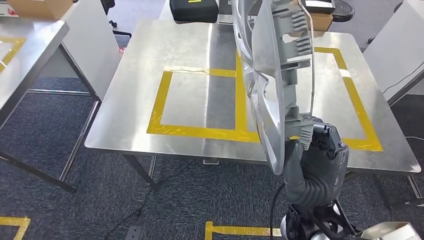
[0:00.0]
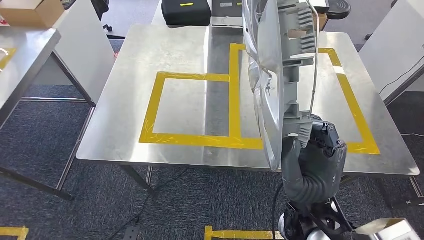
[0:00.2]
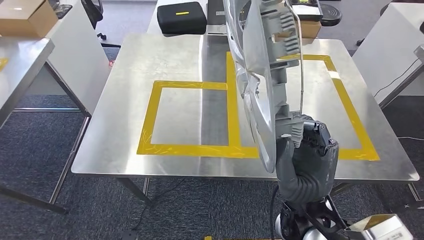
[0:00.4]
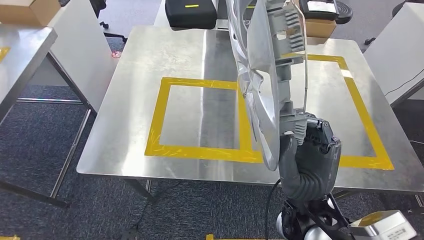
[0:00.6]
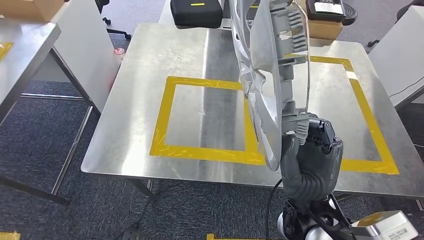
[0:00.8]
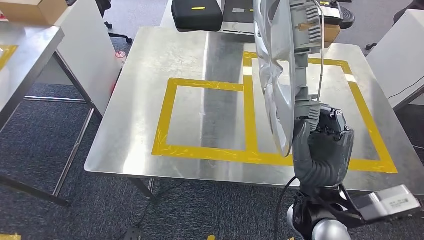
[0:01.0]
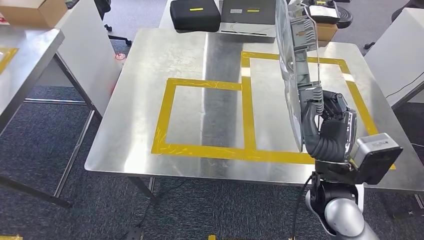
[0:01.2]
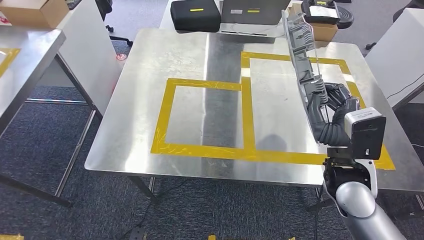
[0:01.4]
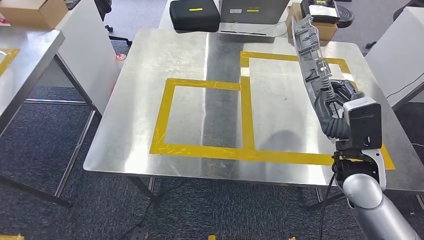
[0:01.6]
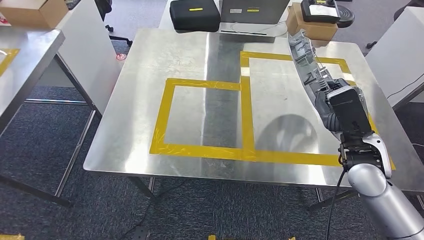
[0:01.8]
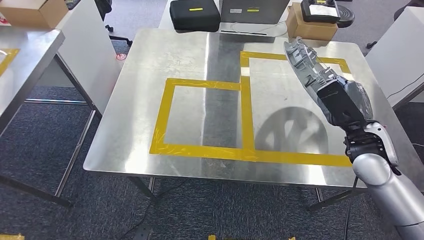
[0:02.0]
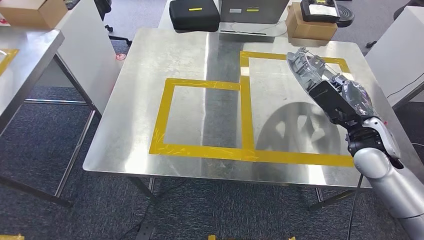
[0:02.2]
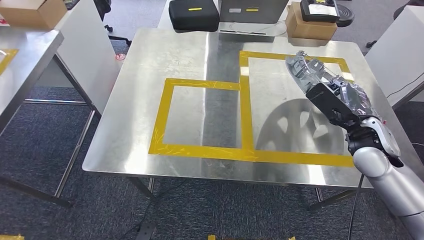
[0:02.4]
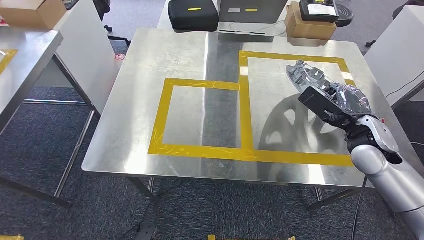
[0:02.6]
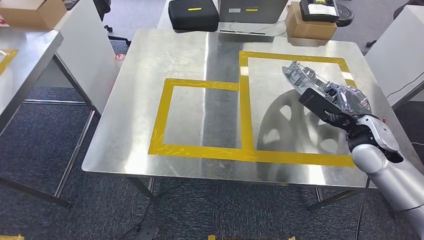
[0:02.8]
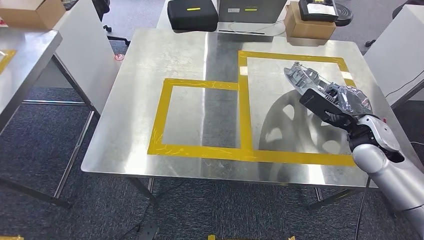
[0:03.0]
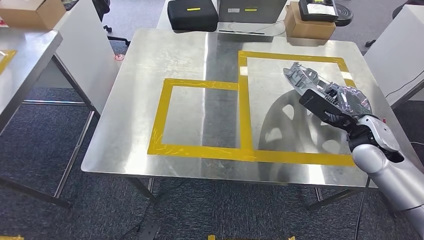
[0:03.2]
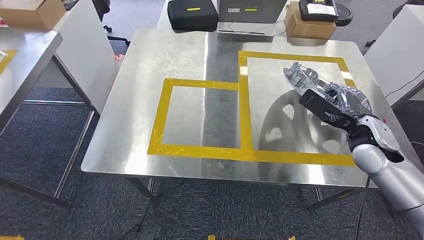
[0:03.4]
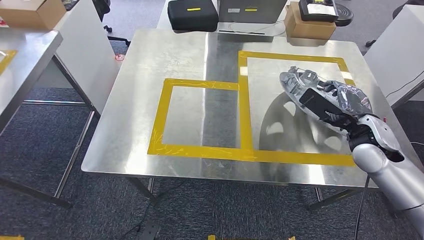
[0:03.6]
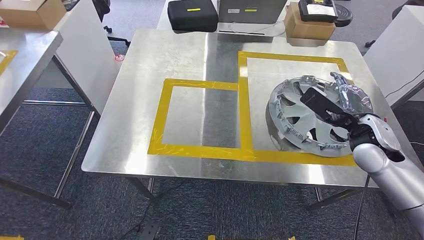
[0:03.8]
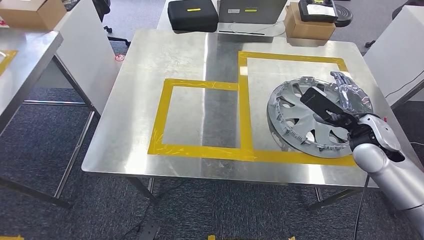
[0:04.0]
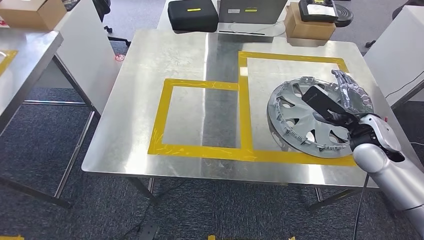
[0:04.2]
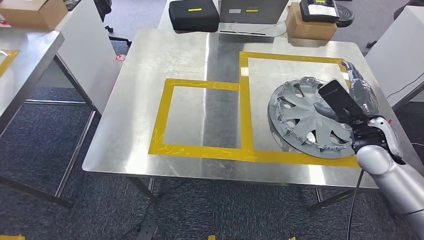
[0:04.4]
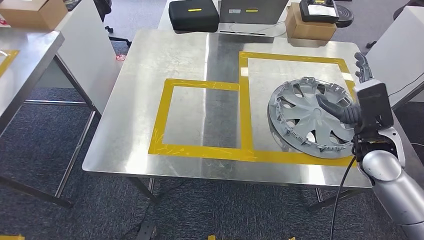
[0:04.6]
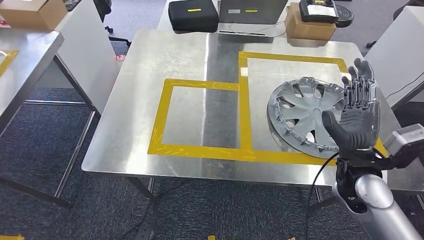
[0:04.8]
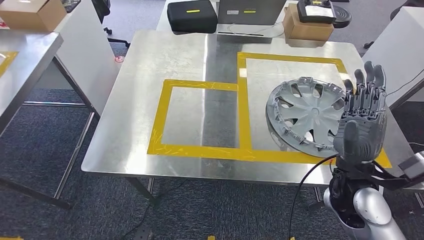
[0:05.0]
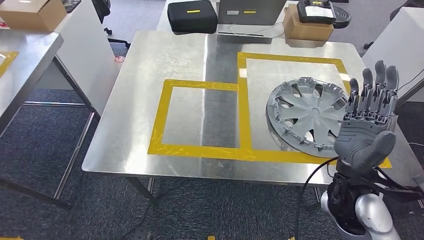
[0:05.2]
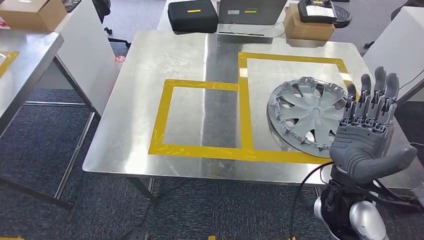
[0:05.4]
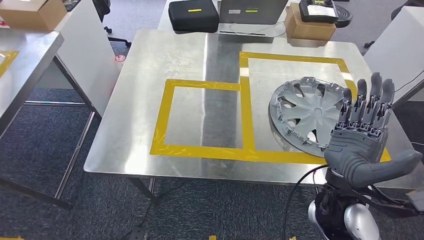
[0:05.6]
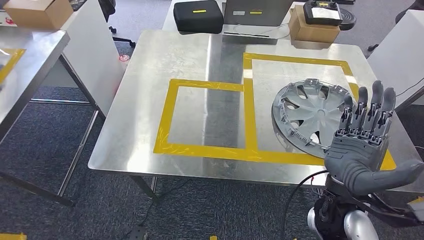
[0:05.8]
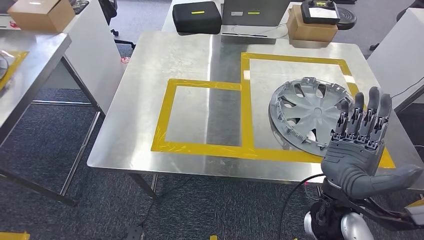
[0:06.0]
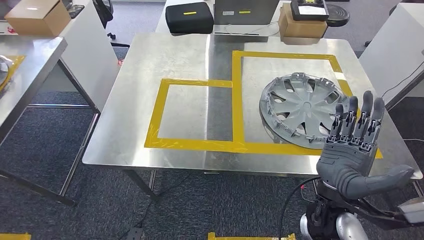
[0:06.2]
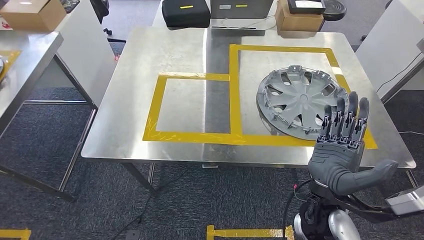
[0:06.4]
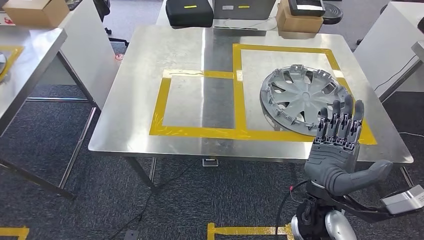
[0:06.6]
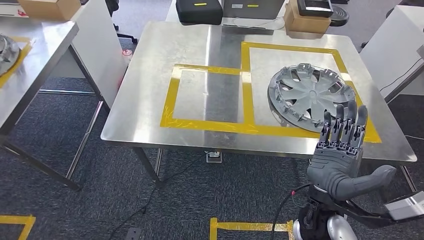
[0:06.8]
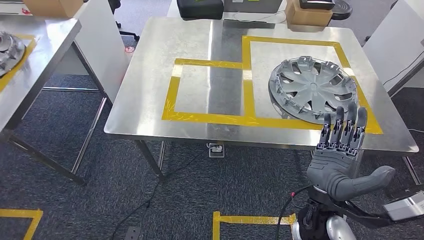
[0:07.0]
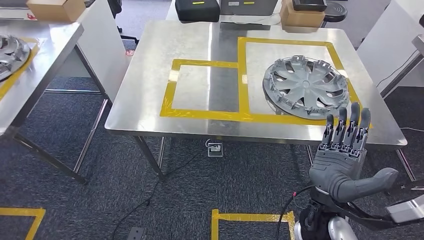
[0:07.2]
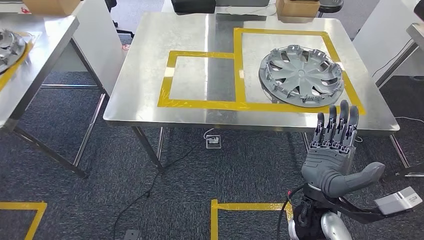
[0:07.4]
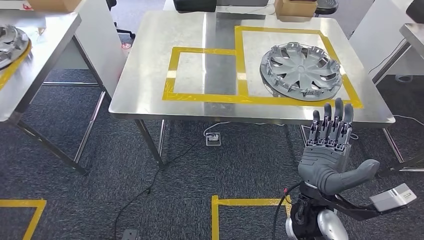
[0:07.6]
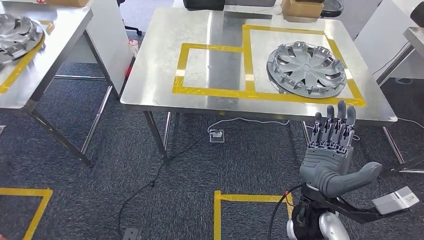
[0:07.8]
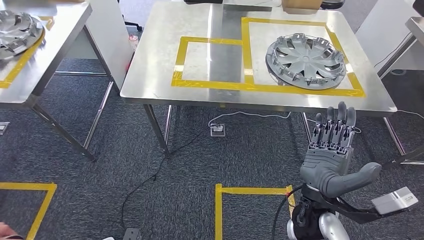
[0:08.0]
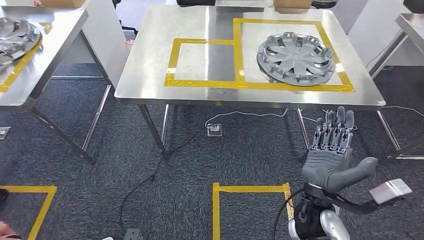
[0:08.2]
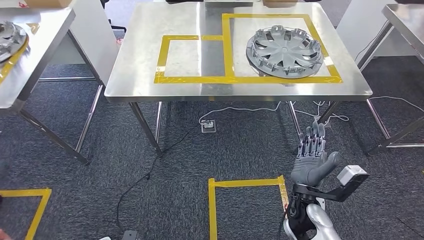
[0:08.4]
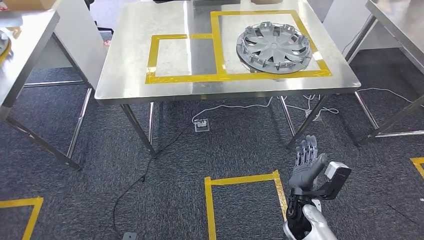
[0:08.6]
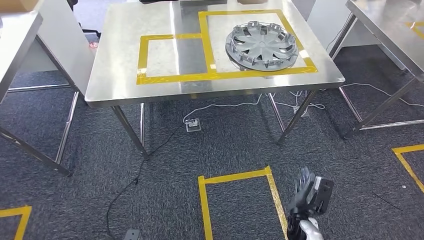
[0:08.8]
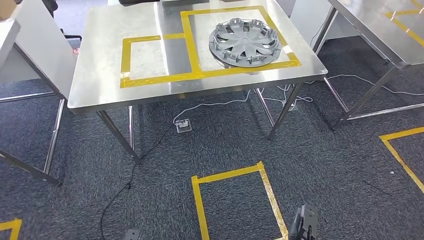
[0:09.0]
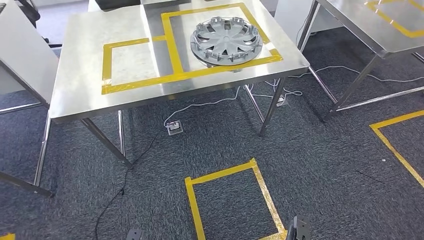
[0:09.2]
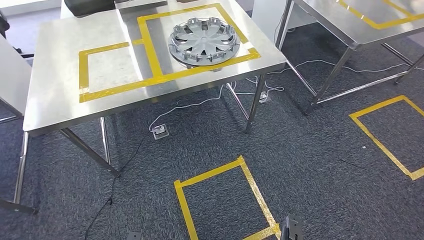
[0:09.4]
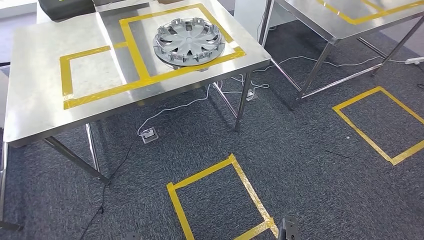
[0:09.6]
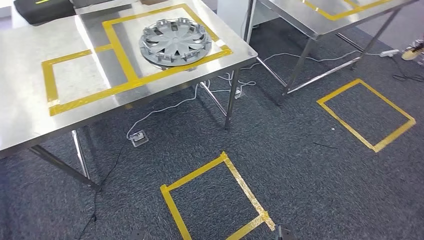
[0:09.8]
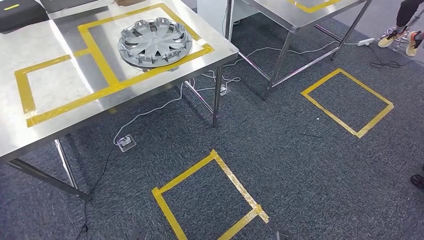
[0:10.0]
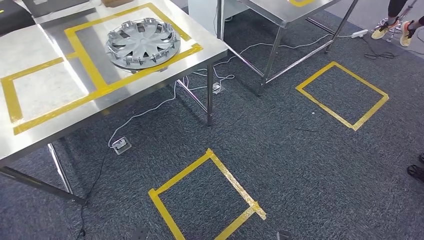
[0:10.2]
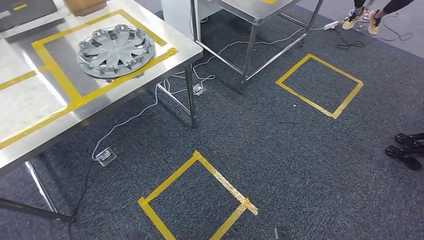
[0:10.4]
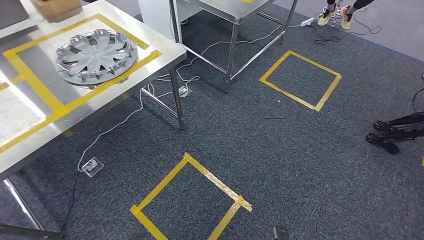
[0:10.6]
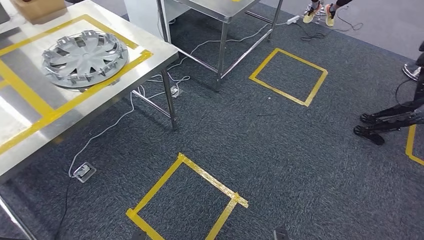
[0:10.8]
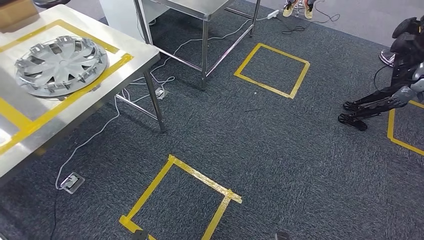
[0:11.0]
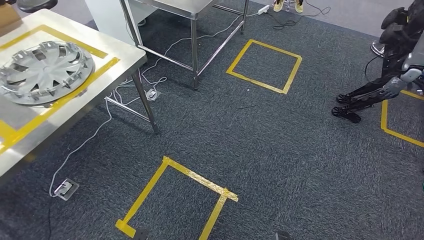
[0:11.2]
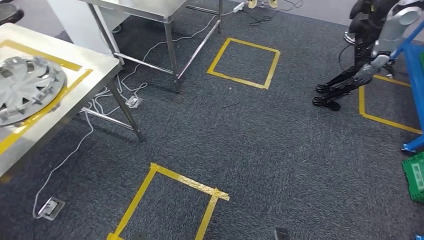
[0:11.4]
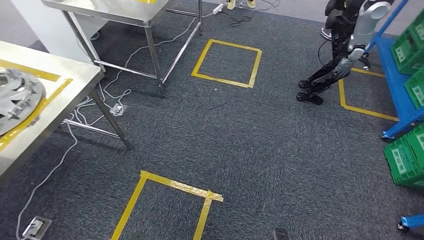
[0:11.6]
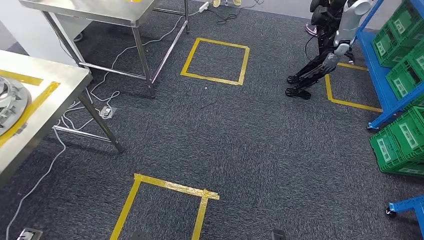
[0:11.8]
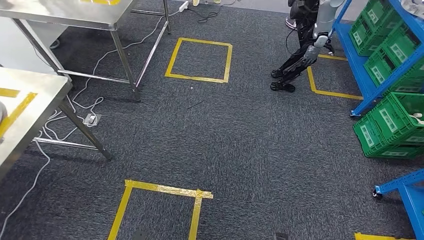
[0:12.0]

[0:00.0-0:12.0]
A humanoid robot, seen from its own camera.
Step, 0:00.0 to 0:05.6: Insert the small parts into the corresponding holes on the workbench.
0:03.0 to 0:04.4: There are only small adjustments of the hands.

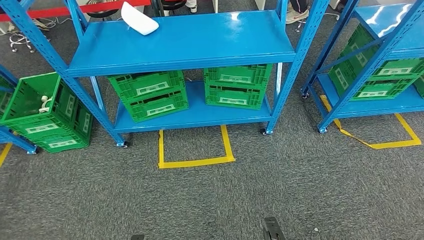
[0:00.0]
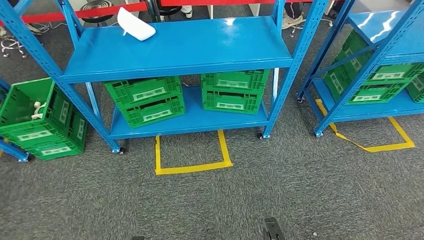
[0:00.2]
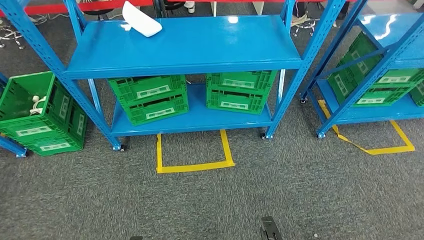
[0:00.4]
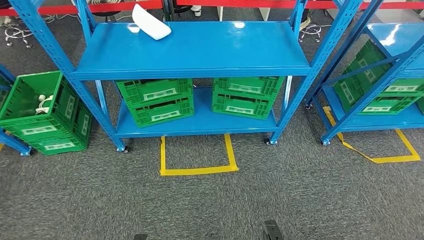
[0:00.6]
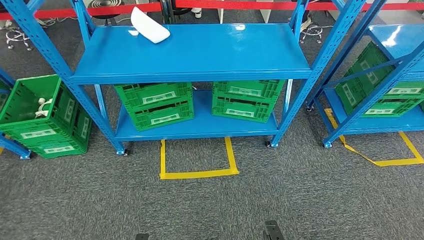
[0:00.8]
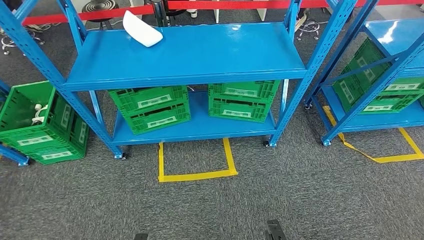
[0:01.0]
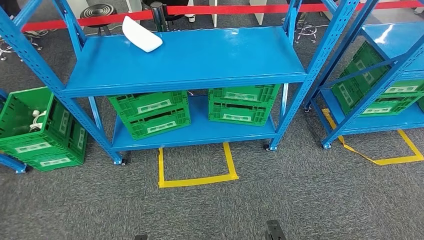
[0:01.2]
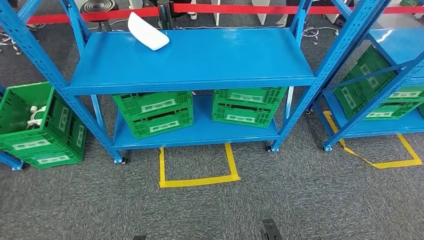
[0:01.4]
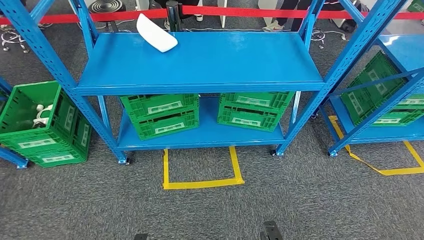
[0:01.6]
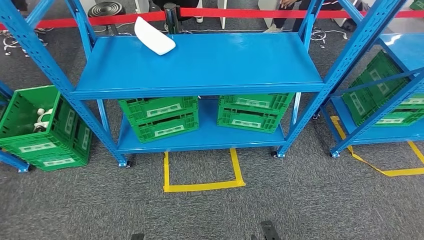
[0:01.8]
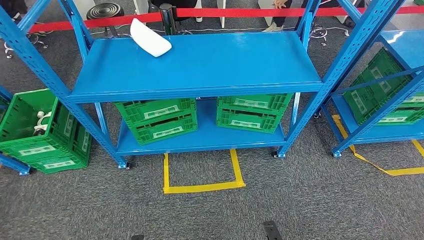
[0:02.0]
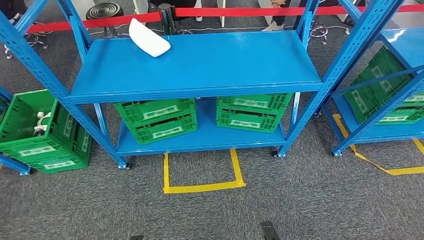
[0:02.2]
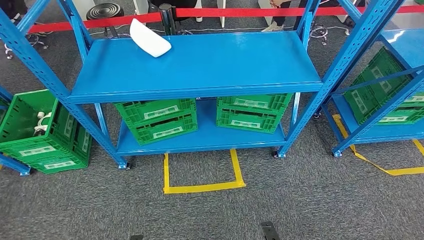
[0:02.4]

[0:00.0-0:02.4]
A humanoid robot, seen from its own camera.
Step, 0:00.0 to 0:02.4: Move to the initial position of the workbench.
